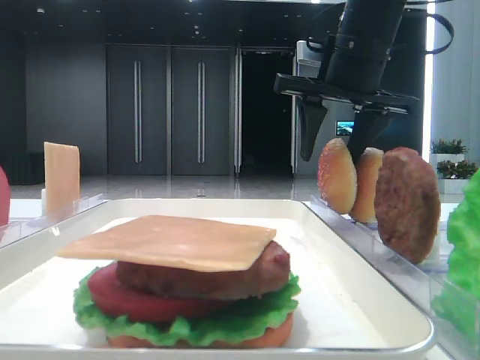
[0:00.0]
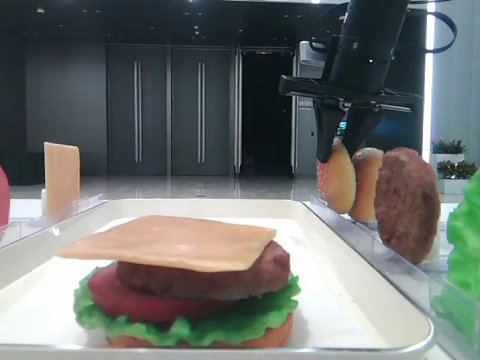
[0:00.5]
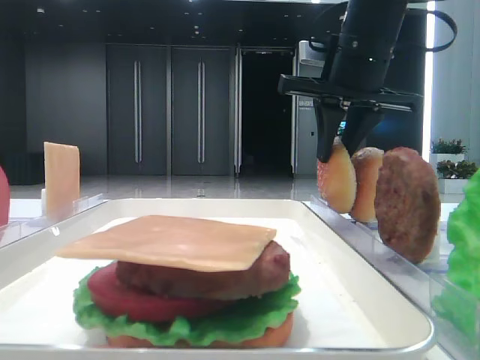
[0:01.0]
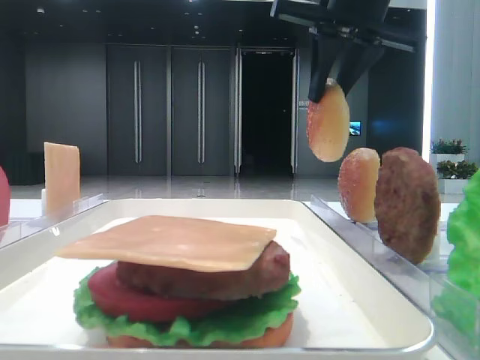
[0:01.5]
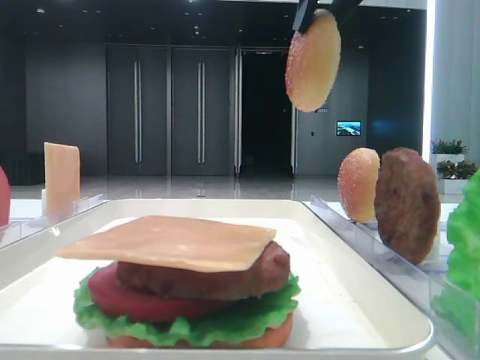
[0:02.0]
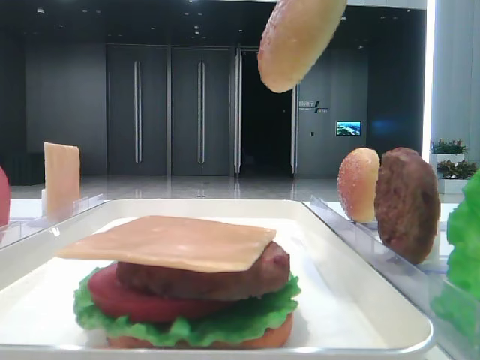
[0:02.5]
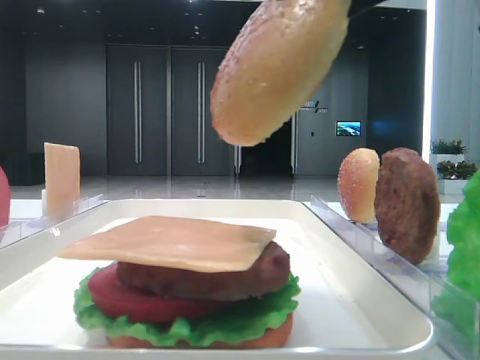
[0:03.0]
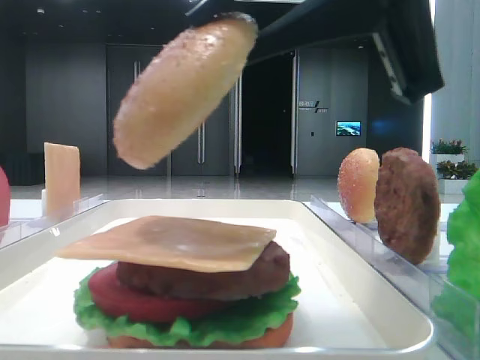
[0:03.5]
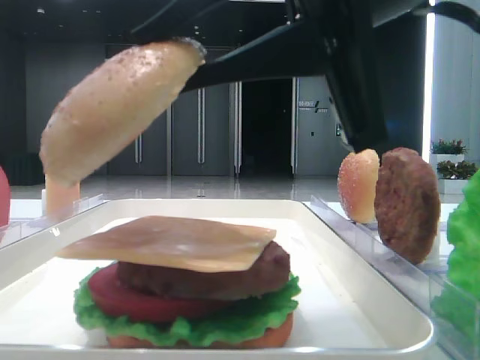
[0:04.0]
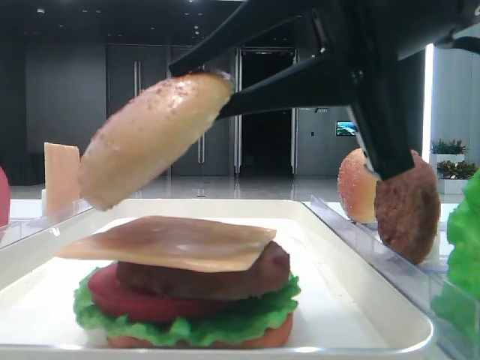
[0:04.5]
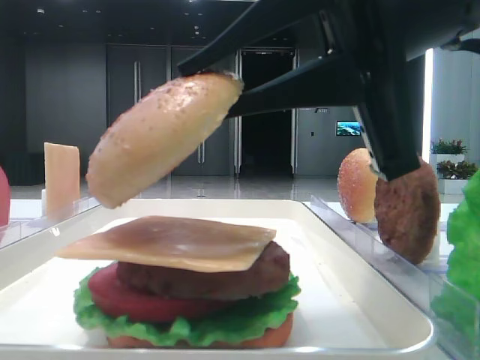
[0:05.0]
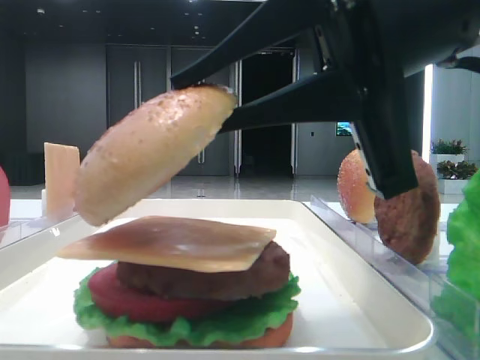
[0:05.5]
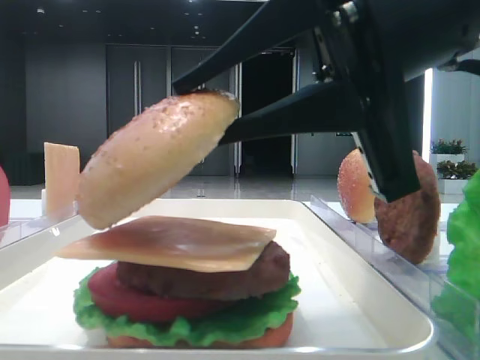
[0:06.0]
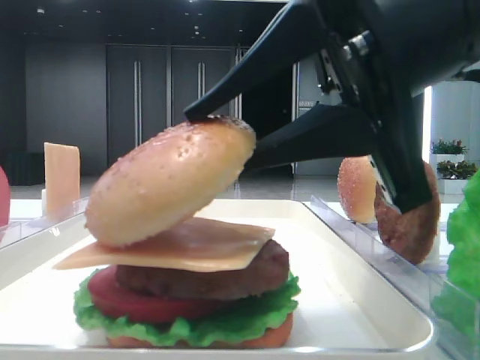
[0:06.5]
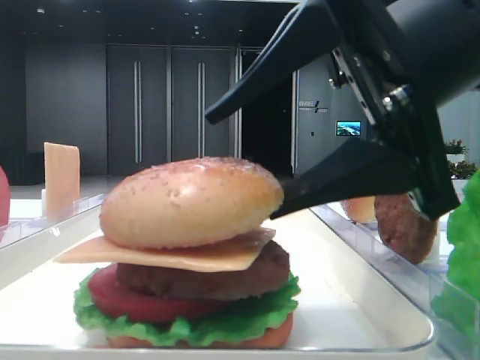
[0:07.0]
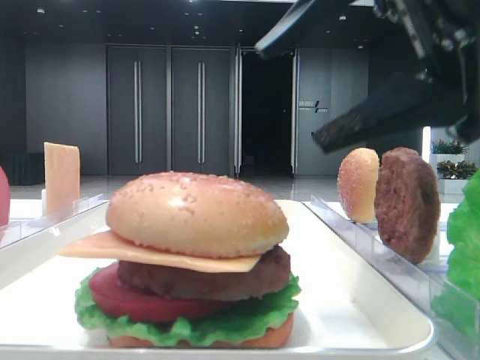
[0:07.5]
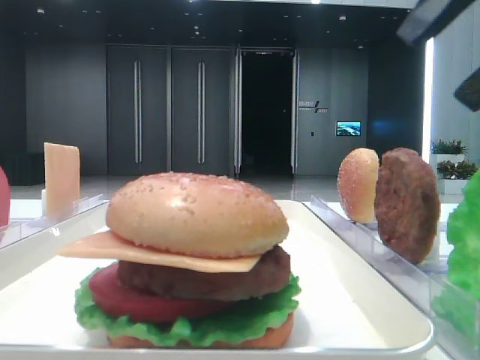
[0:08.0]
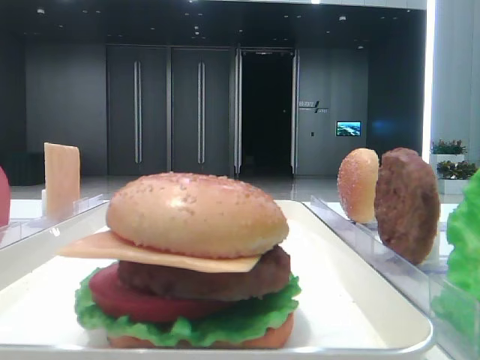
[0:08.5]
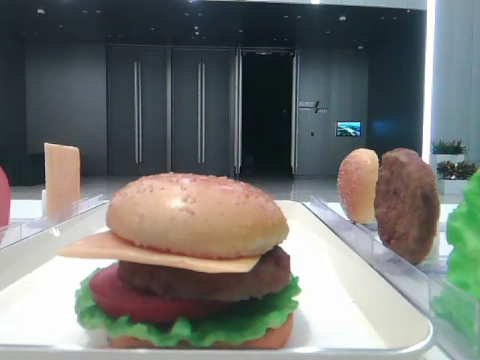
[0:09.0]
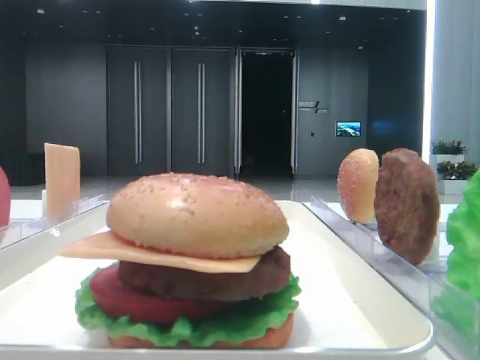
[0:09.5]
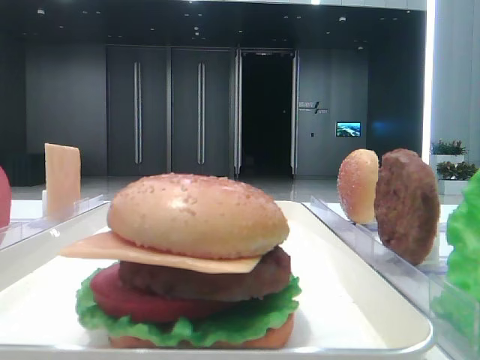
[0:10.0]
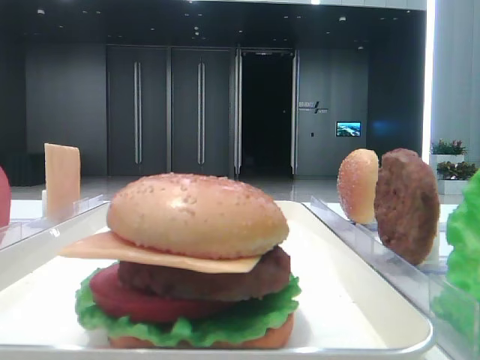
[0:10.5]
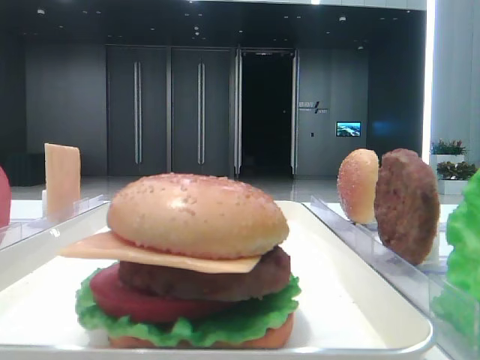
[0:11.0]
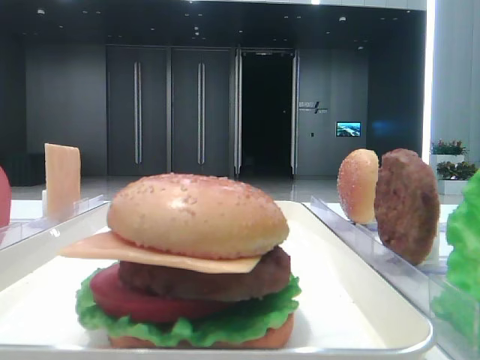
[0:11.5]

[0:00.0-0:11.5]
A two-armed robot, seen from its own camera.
Step, 0:01.0 to 0:07.0: Place the top bread slice on the cheese with the right hand.
0:00.0 to 0:02.0: The right gripper travels upward and backward by some 15 cm, and closes its fingers.
0:02.0 to 0:04.0: The right gripper goes about 15 cm downward and backward.
0:06.0 to 0:07.5: The right gripper shifts by approximately 5 cm, and opens its fingers.
0:07.5 to 0:09.5: The right gripper goes approximately 25 cm backward and to the right.

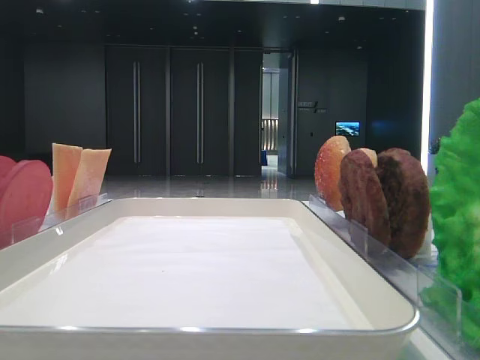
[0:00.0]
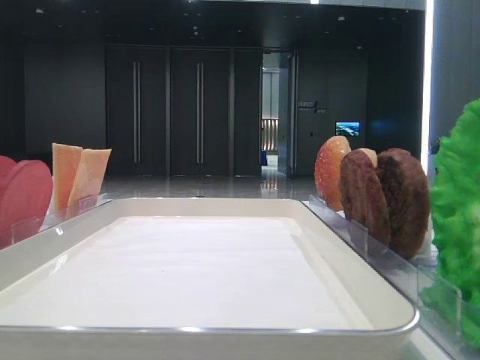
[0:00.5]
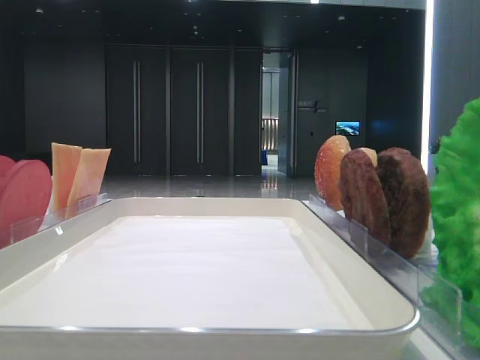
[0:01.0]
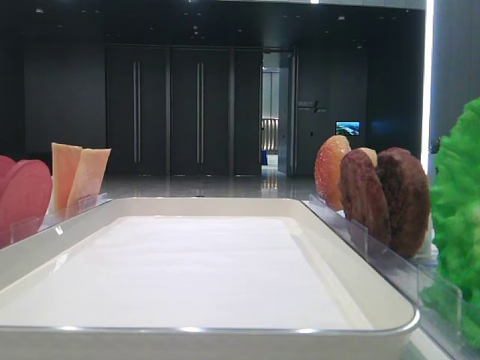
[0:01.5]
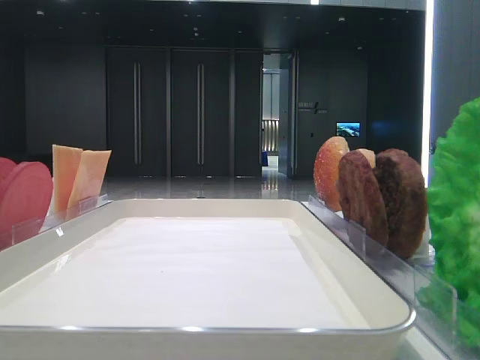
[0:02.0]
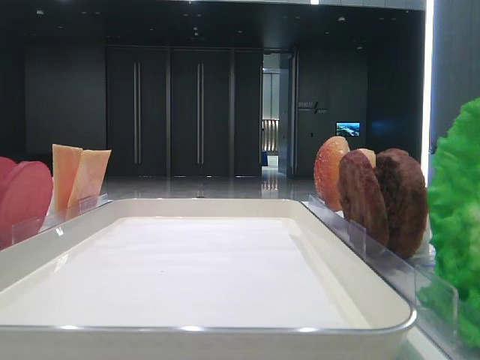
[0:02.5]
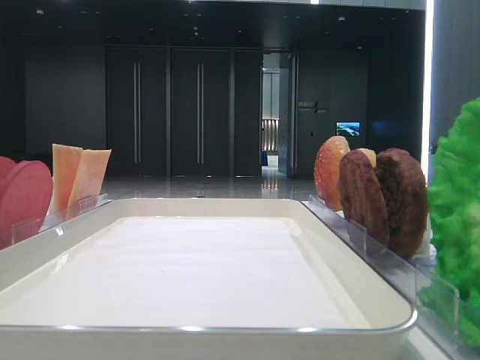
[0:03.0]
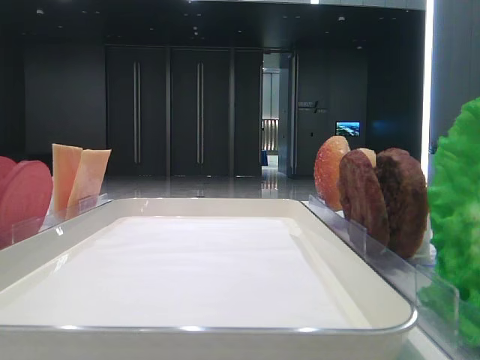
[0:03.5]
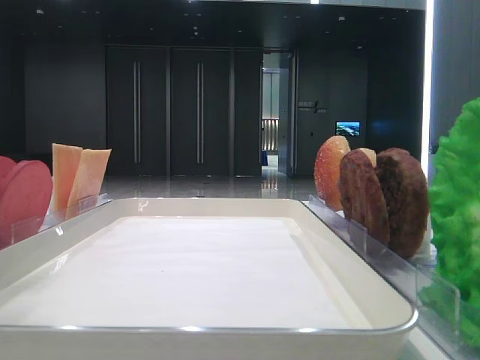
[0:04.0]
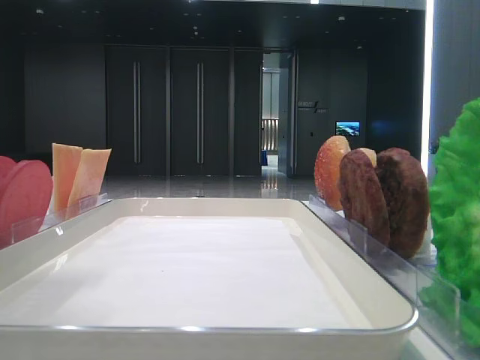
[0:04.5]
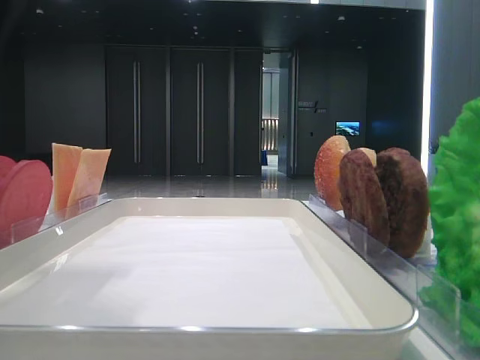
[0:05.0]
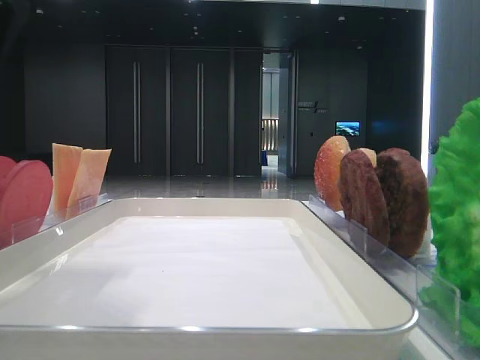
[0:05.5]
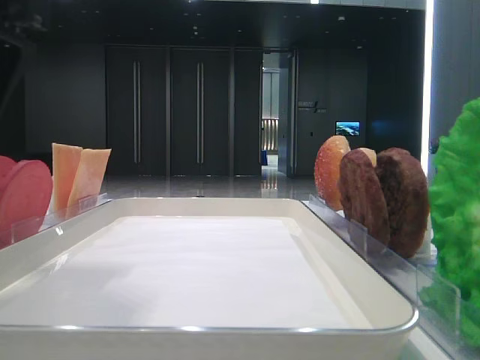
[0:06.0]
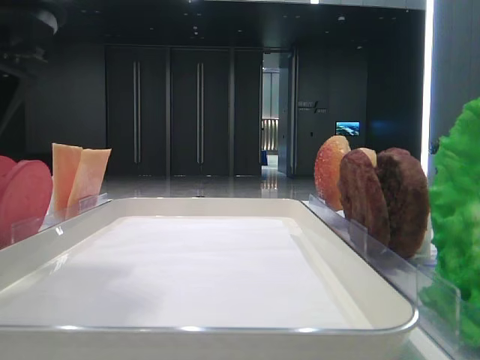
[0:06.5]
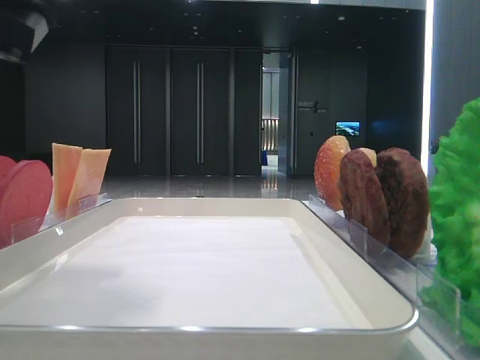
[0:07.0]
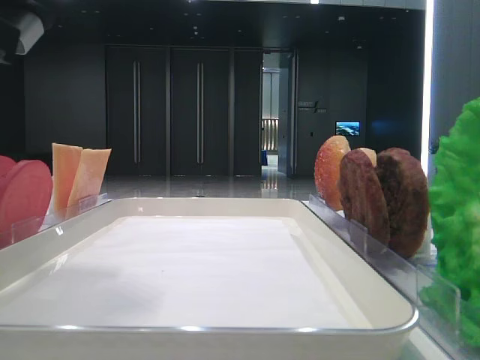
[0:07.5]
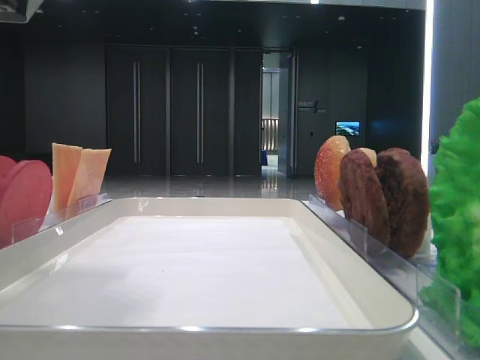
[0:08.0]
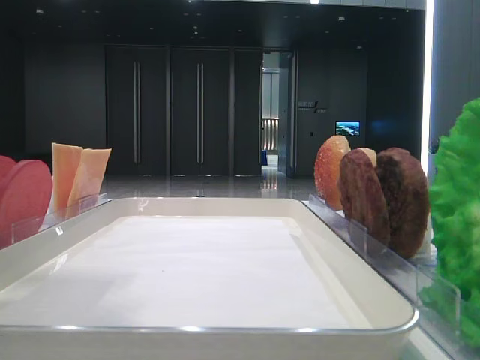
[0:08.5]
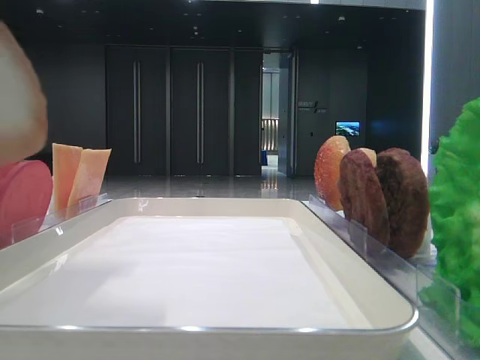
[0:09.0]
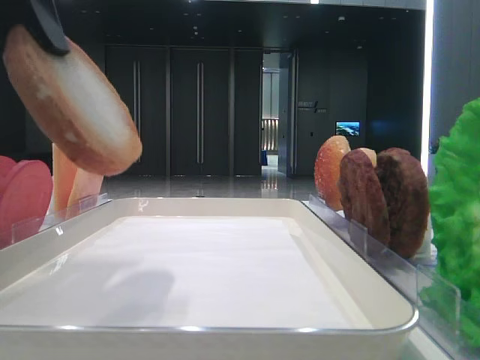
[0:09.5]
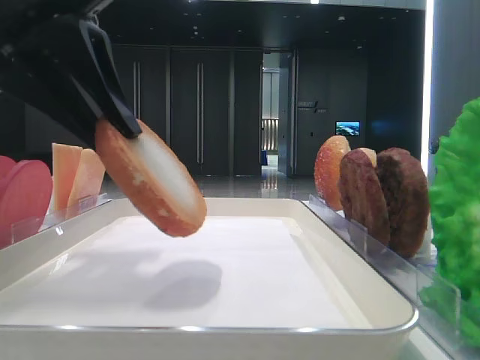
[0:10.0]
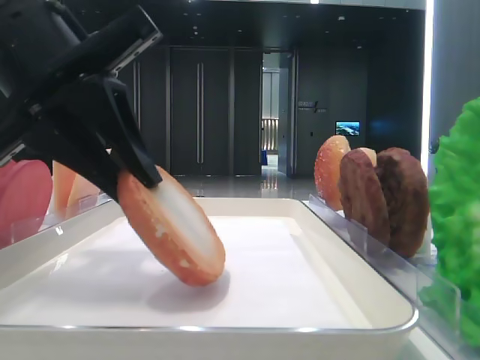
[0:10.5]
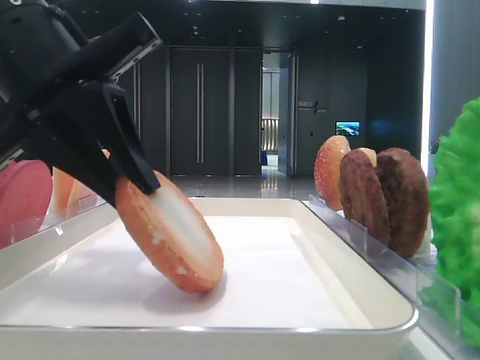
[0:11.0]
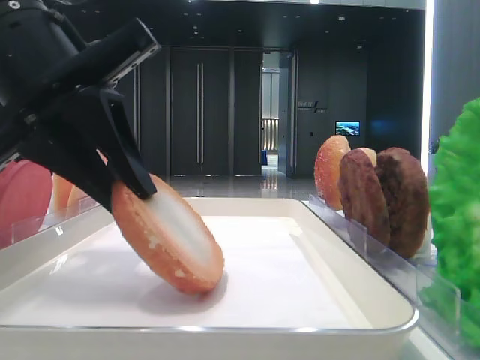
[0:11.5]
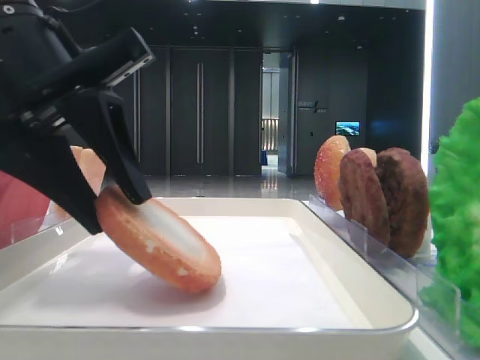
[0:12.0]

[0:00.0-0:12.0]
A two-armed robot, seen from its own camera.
Step, 0:00.0 to 0:07.0: Pick up the bottom bread slice with the left hand.
0:02.0 to 0:04.0: The left gripper travels forward and to the right by approximately 15 cm.
0:04.0 to 0:06.0: The left gripper heads downward and to the right, covering approximately 10 cm.
0:08.0 to 0:10.0: The left gripper travels upward and back again, about 5 cm each way.
0:10.0 to 0:12.0: The grippers move only a little.

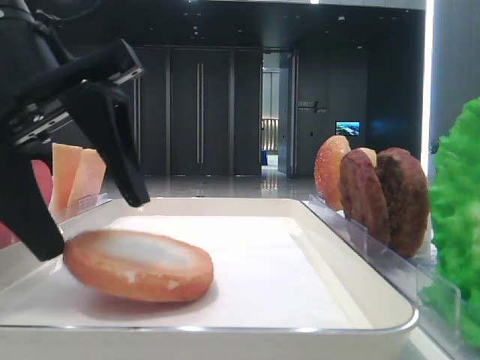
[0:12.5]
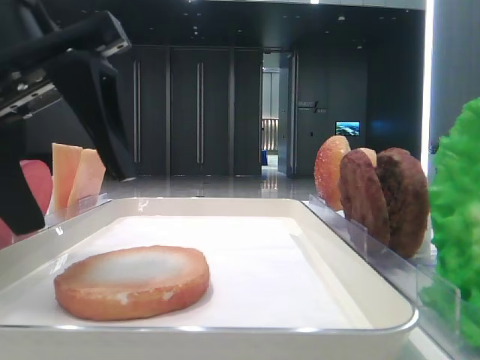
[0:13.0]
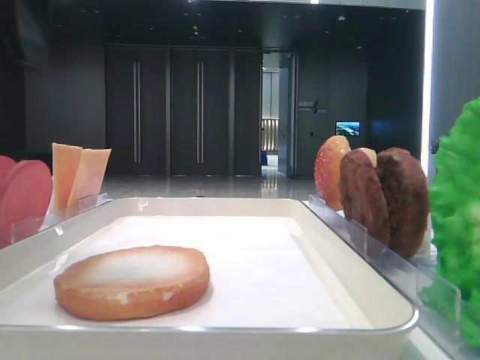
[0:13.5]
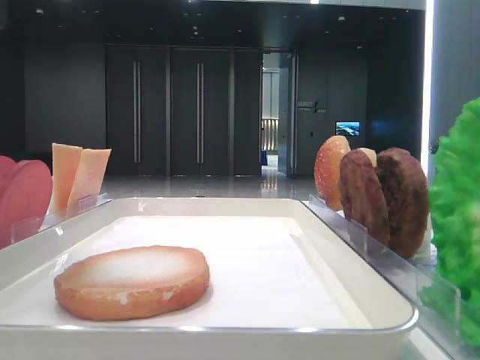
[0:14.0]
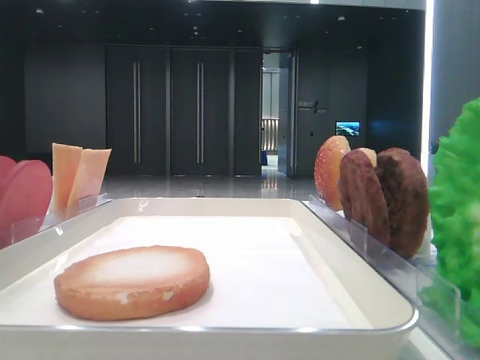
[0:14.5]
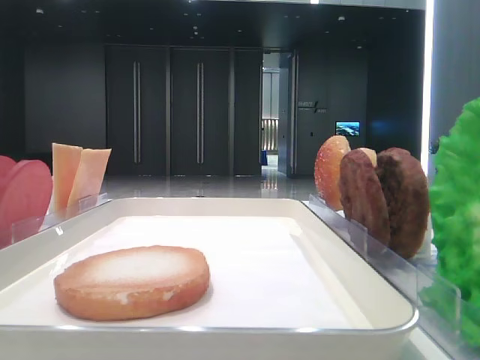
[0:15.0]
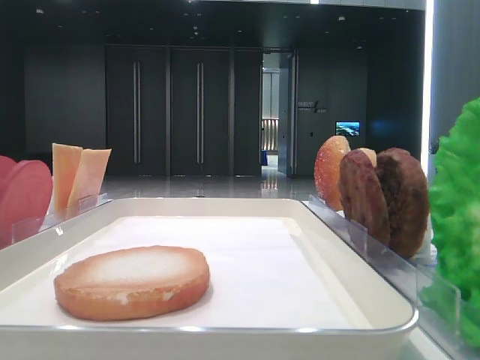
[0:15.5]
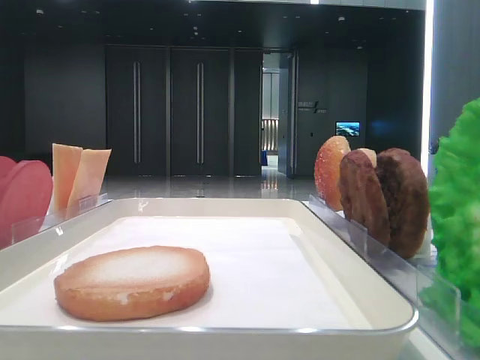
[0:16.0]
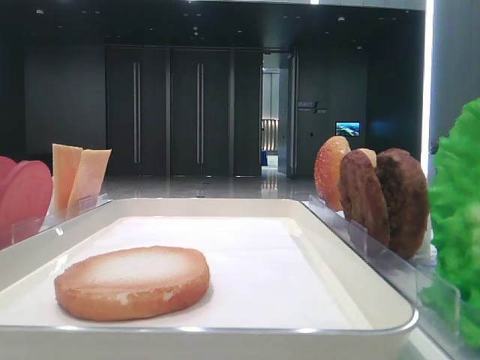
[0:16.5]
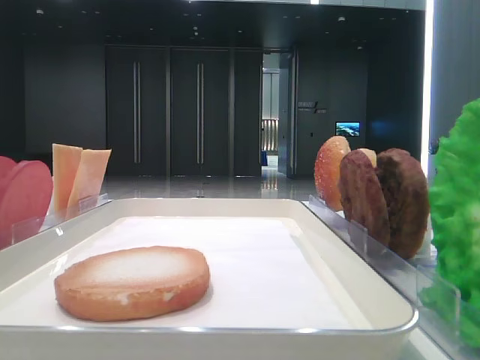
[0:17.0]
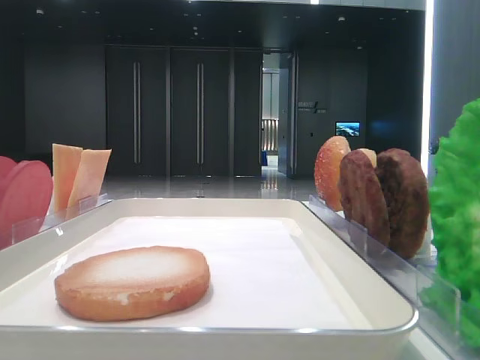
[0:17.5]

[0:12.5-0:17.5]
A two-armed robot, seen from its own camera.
0:12.5 to 0:15.0: The left gripper moves to the left and upward, about 25 cm.
